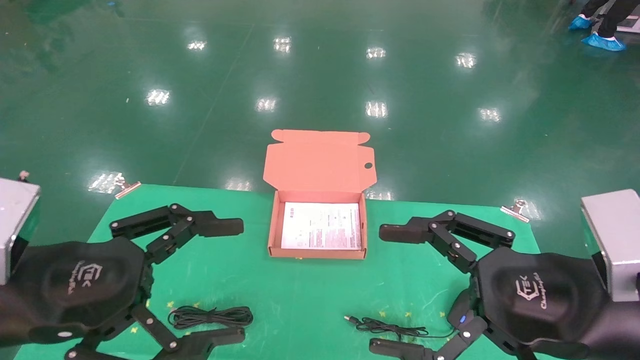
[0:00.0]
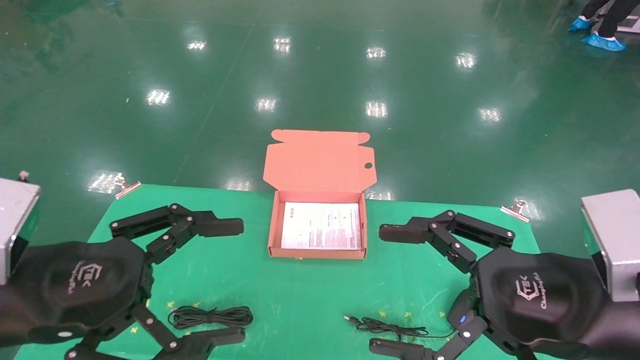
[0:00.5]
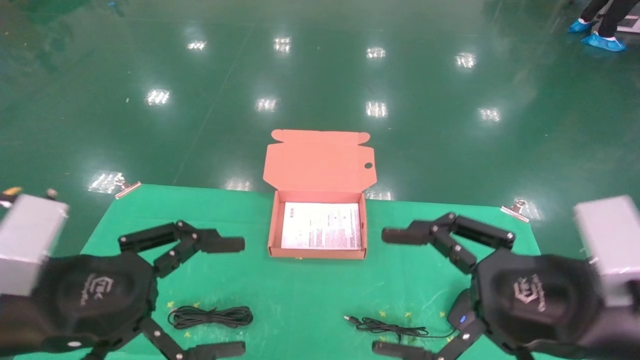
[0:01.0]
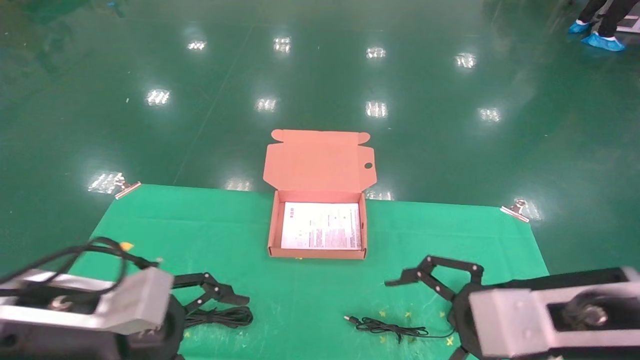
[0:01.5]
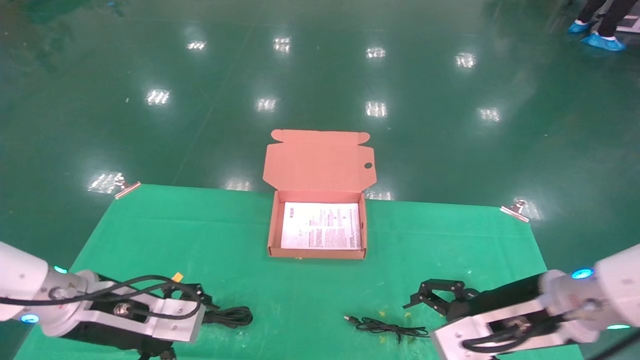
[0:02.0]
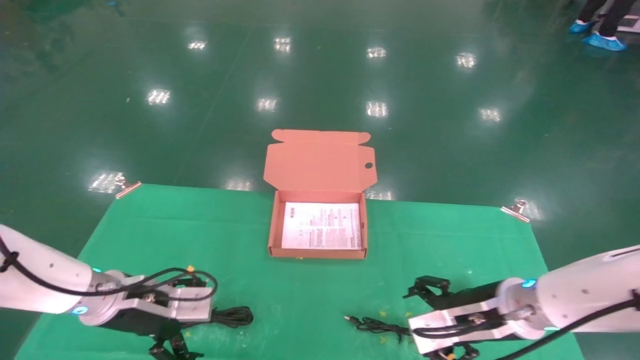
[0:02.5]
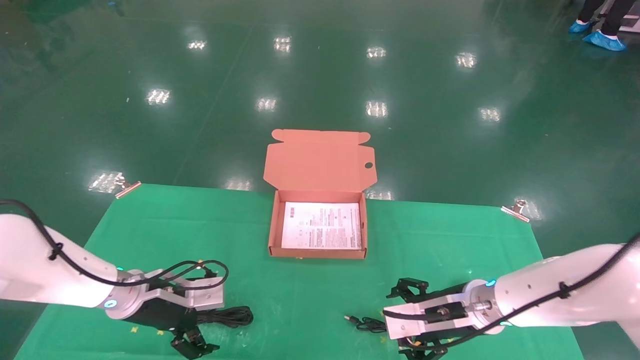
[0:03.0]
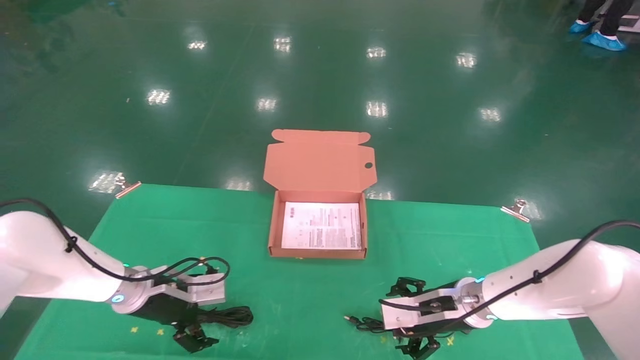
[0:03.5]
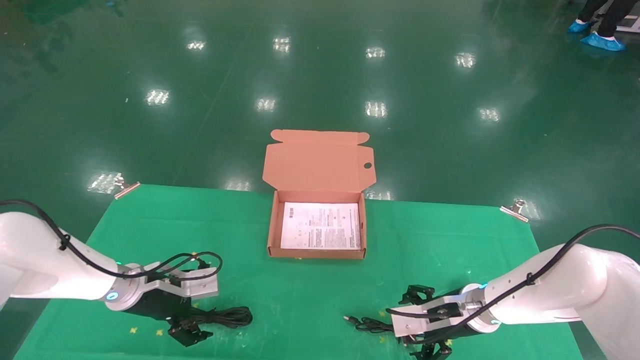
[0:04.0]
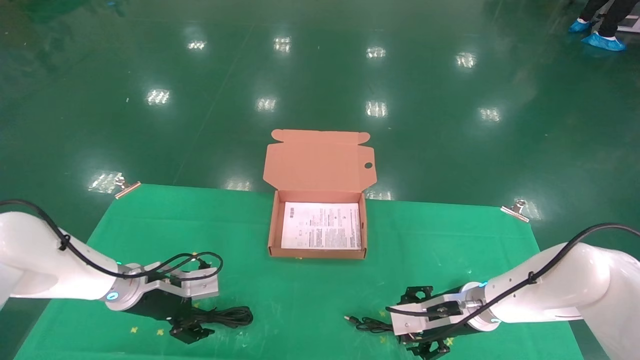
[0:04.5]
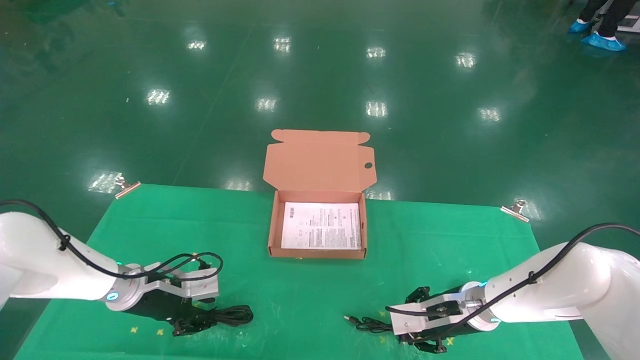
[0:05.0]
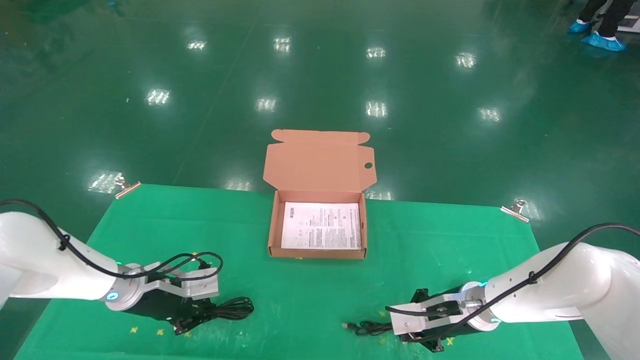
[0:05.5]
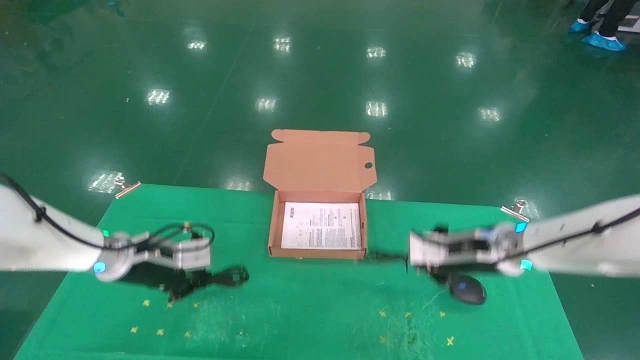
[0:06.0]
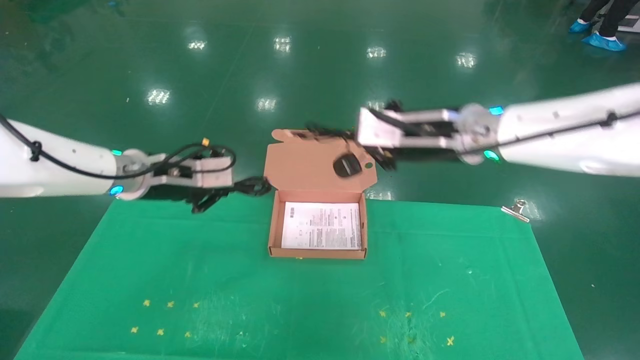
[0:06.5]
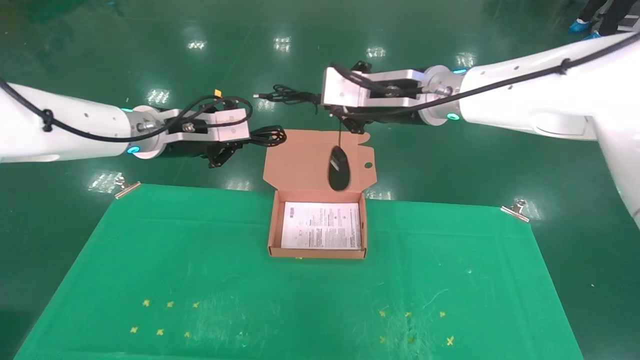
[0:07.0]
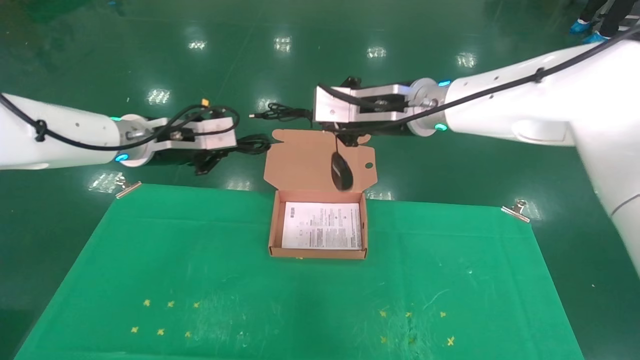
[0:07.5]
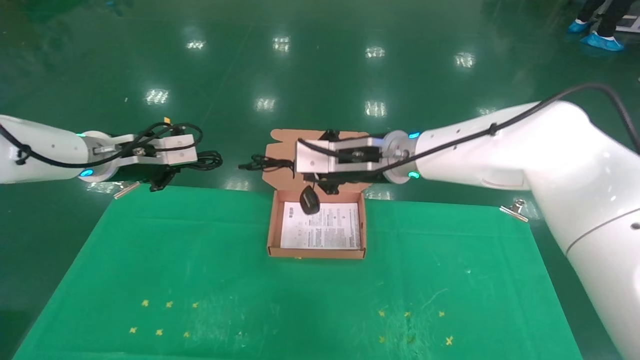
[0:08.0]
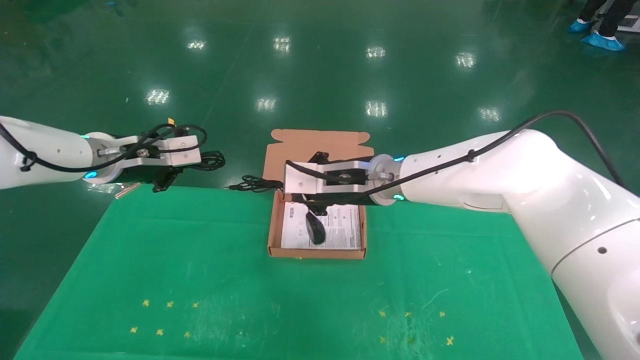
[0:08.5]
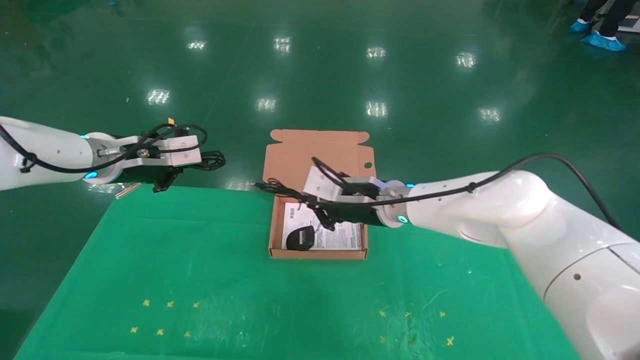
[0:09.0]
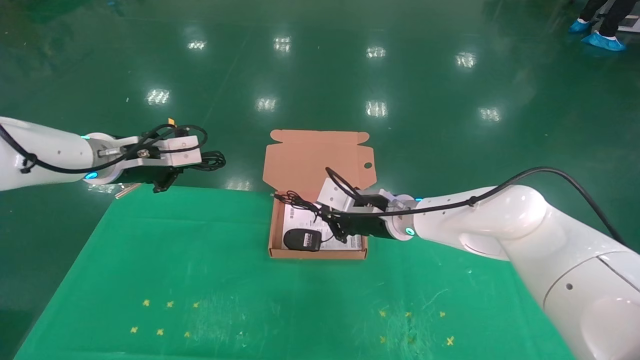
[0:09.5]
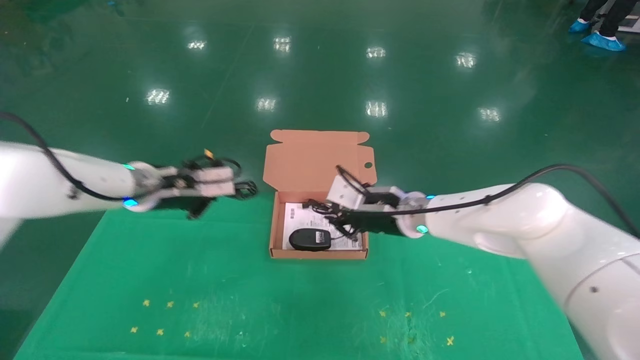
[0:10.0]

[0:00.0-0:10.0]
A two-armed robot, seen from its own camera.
Task of the whole recording: grasp data cable left put into box grasp mouse right put into box.
Step, 0:01.0 to 0:06.0: Grab and pick up both the mouse and power cord from the accessory packaging area at the same time.
0:00.0 to 0:02.0: Both grippers move forward and downward, some 15 cm.
0:02.0 to 0:04.0: The grippers both shift forward and downward by roughly 15 cm.
0:04.0 to 0:06.0: The right gripper heads upward, covering some 10 cm, and closes up, while the left gripper heads upward, covering roughly 5 cm, and closes up.
0:06.0 to 0:08.0: The left gripper is displaced upward by roughly 15 cm. Meanwhile the right gripper goes approximately 20 cm to the left and upward.
0:08.0 to 0:10.0: The left gripper shifts some 5 cm to the right and downward. The right gripper goes approximately 10 cm downward and to the right.

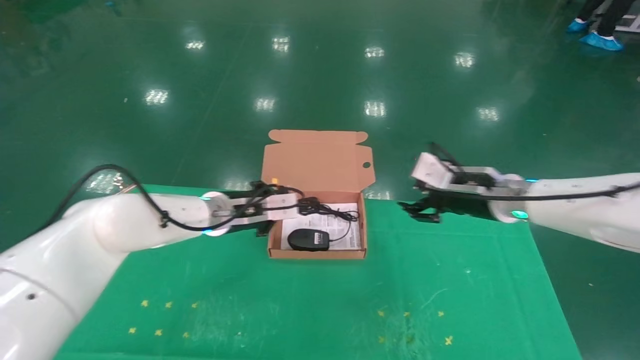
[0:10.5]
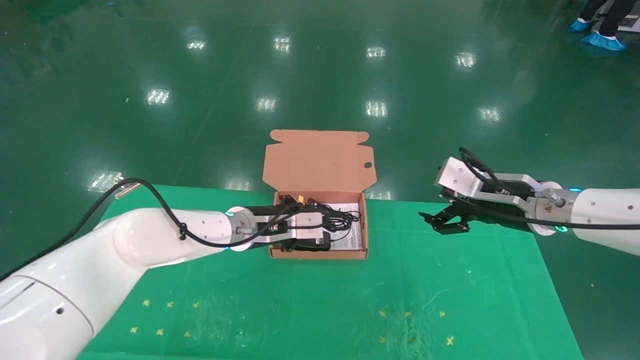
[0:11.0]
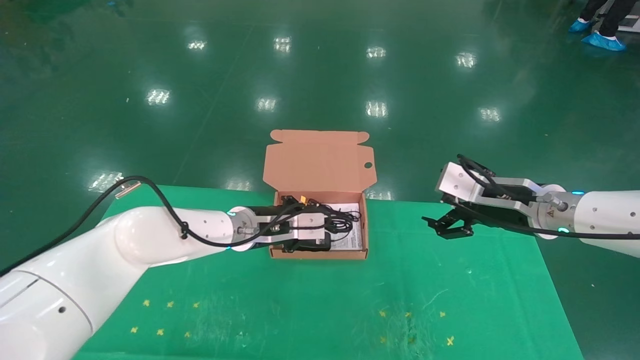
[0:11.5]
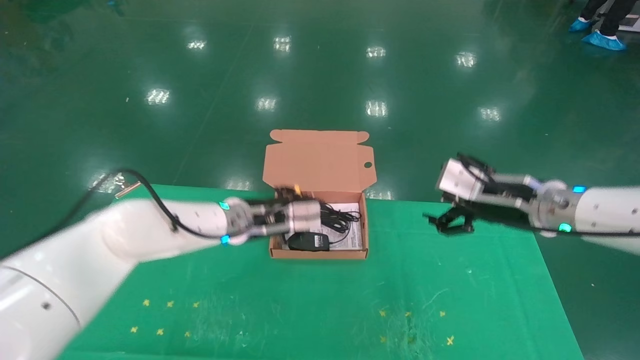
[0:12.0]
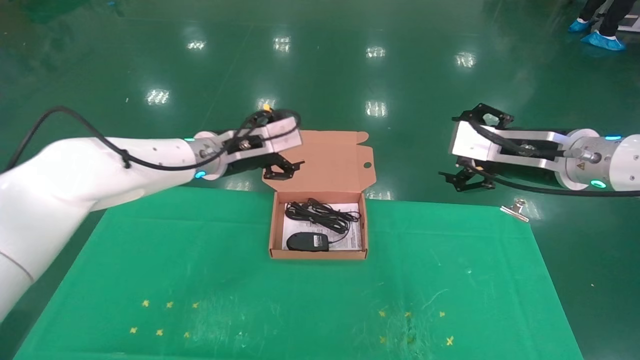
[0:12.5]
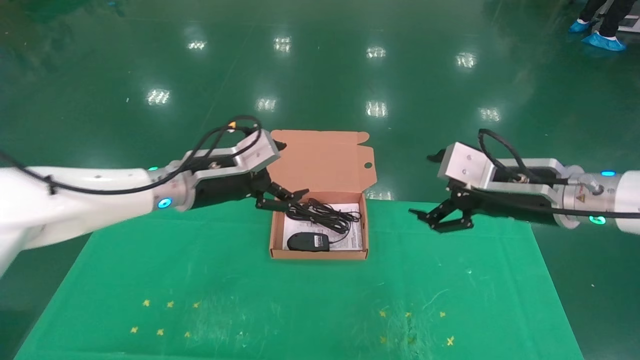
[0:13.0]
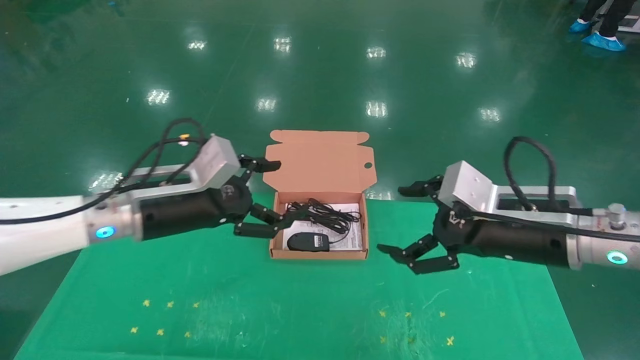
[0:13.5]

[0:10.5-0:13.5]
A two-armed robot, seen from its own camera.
Task of the whole recording: grasp data cable left put into box grasp mouse right put into box.
0:10.5 to 0:12.0: The right gripper goes about 5 cm backward, and opens up.
0:12.0 to 0:13.5: The left gripper travels backward and to the left by about 15 cm, and opens its fingers; the right gripper moves backward, roughly 10 cm.

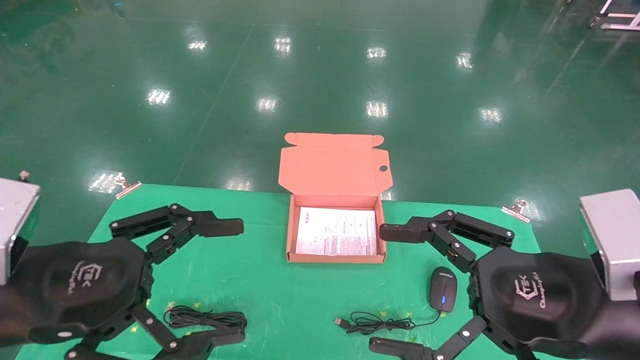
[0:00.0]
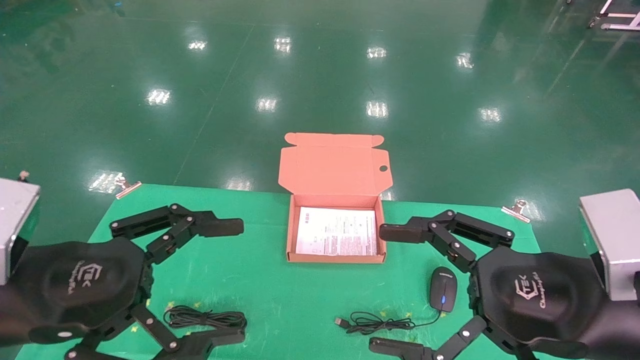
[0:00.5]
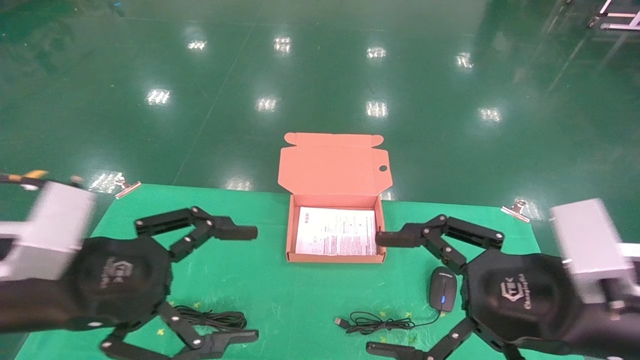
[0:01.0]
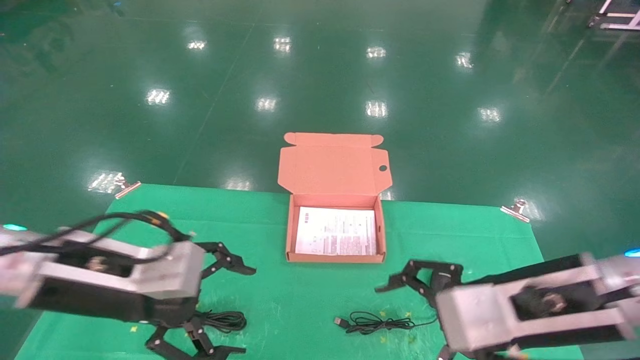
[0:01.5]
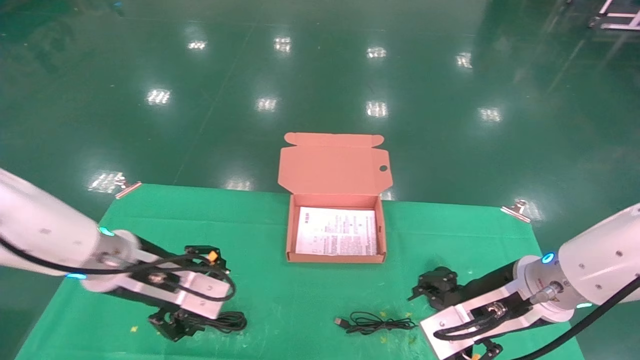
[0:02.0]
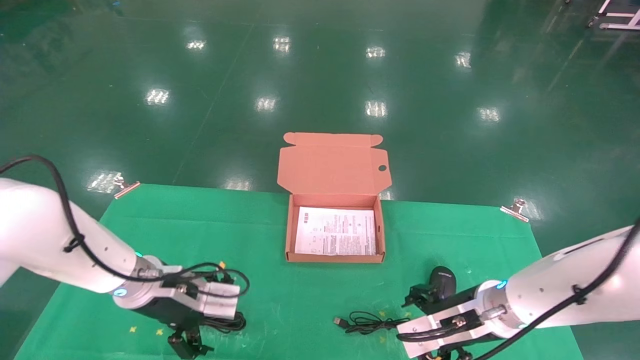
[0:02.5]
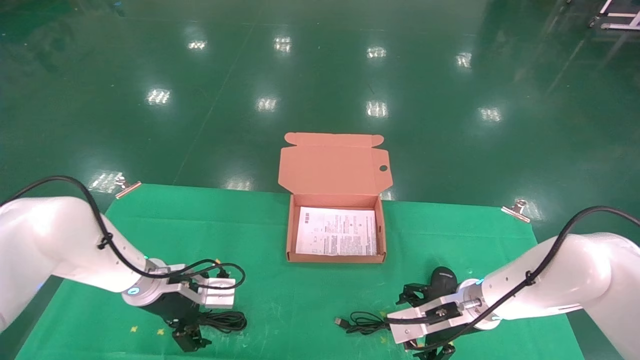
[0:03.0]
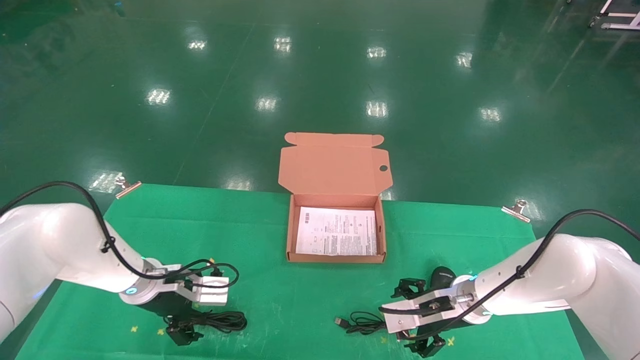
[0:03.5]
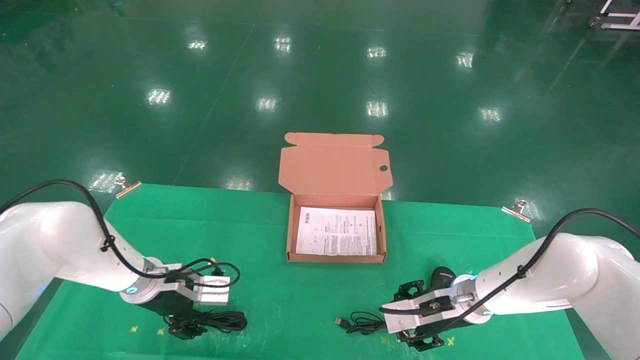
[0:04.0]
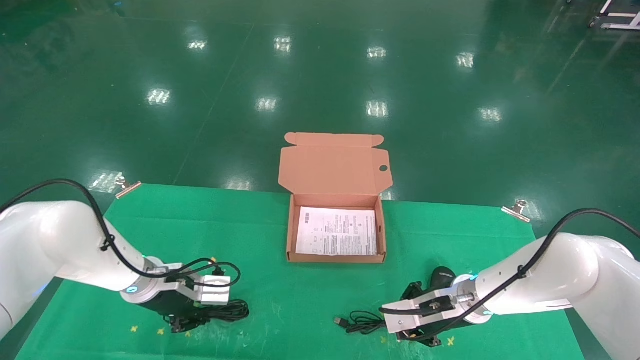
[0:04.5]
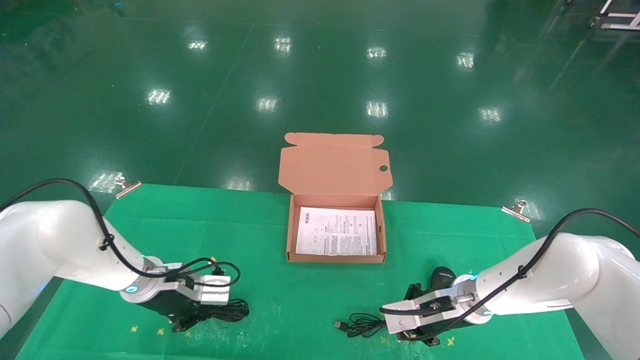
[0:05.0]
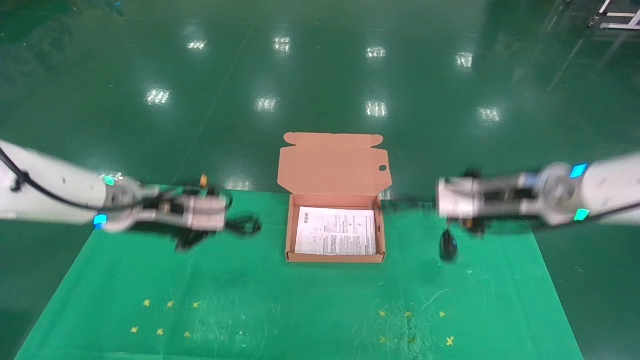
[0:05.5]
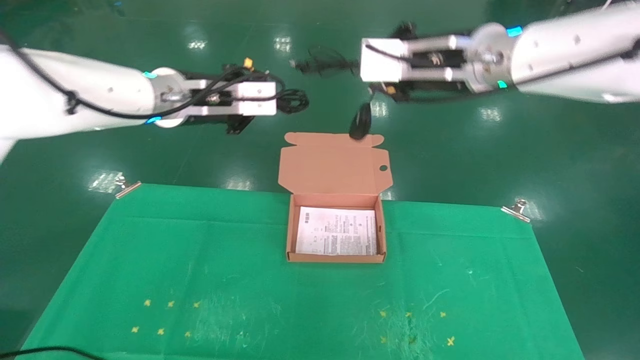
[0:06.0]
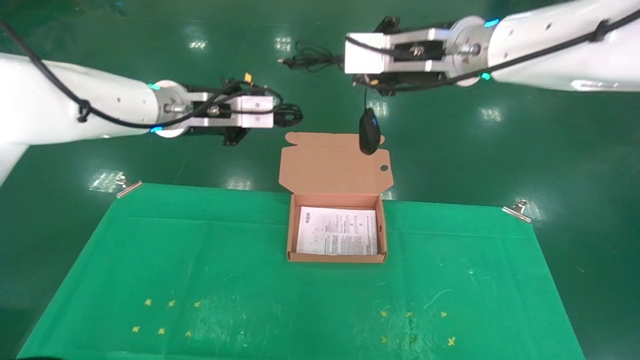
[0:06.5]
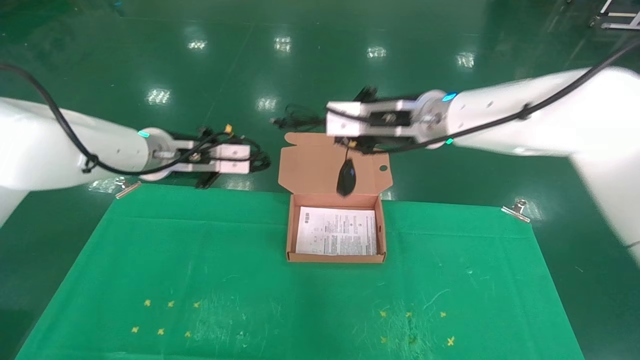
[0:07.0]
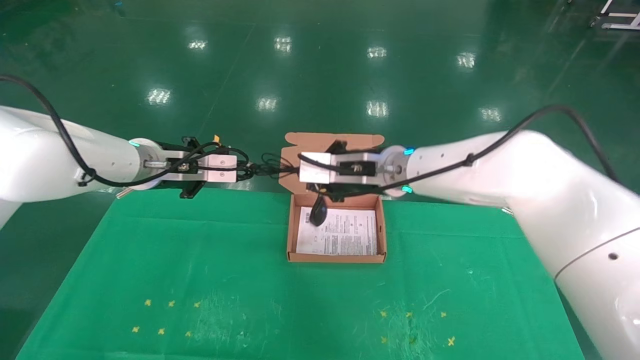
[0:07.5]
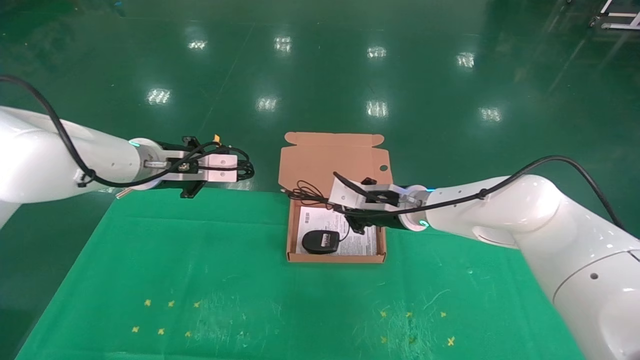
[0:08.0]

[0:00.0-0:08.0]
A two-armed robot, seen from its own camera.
Task of the whole recording: grasp data cable left put into box grasp mouse right put into box.
Step, 0:01.0 to 0:04.5: Grab and pick up both the mouse and power cord from the accessory packaging area at the same time.
0:00.0 to 0:02.0: Both grippers move forward and downward, roughly 15 cm.
0:02.0 to 0:04.0: Both grippers move forward and downward, roughly 15 cm.
0:04.0 to 0:06.0: The grippers both shift upward by roughly 30 cm. The right gripper closes; the left gripper closes its fingers.
0:06.0 to 0:08.0: The left gripper goes roughly 10 cm downward. Meanwhile the right gripper goes some 20 cm downward and forward.
